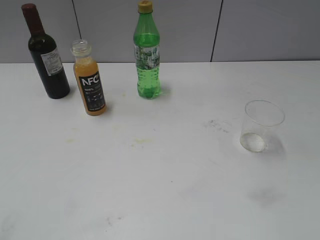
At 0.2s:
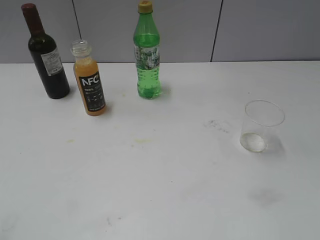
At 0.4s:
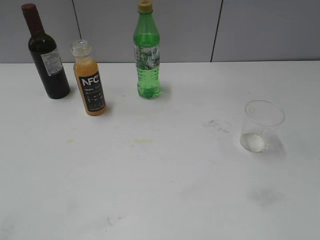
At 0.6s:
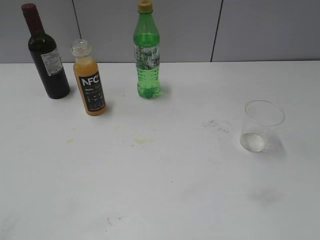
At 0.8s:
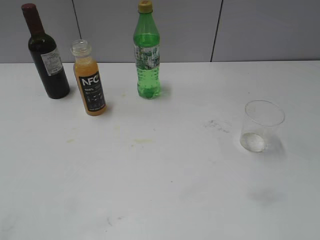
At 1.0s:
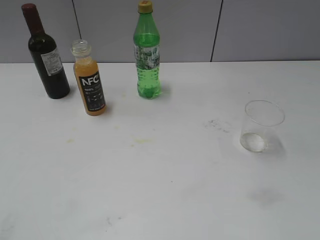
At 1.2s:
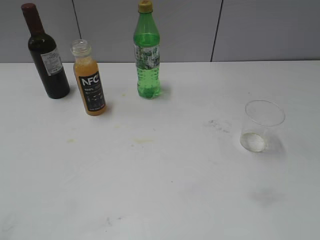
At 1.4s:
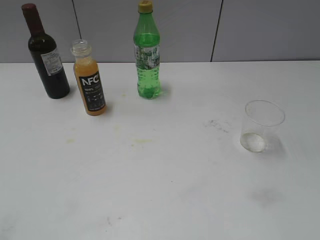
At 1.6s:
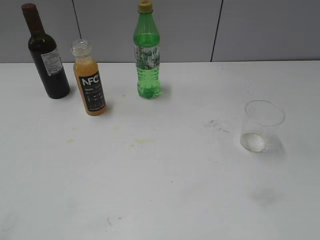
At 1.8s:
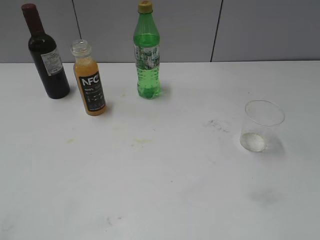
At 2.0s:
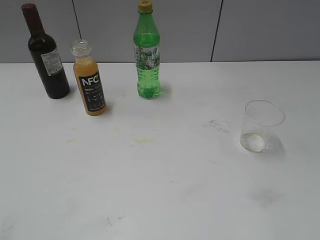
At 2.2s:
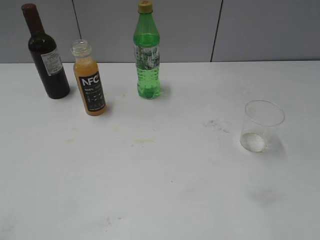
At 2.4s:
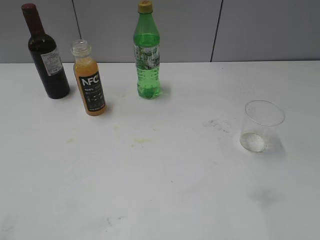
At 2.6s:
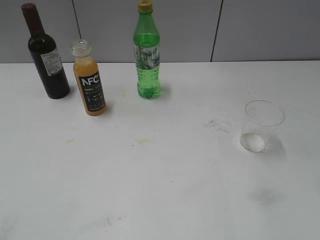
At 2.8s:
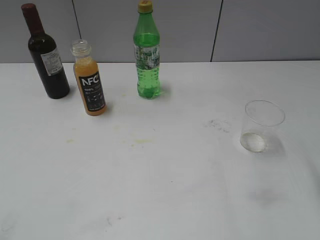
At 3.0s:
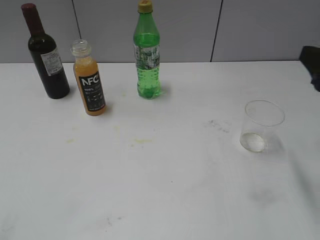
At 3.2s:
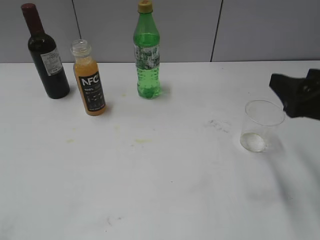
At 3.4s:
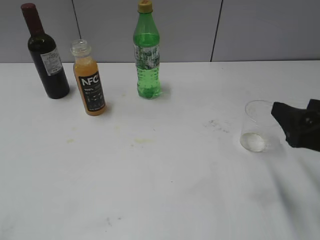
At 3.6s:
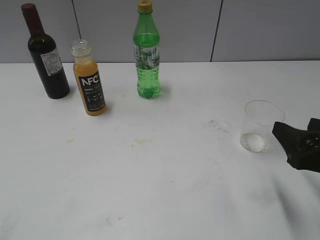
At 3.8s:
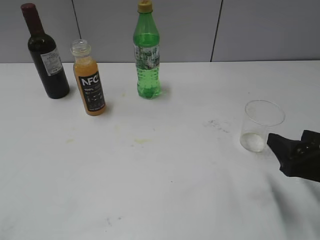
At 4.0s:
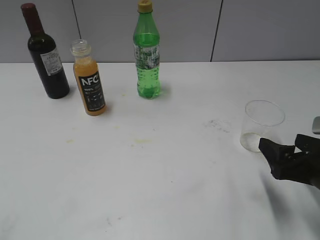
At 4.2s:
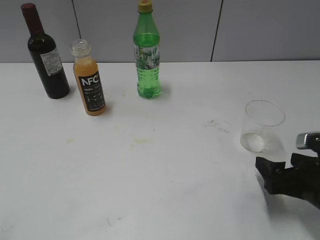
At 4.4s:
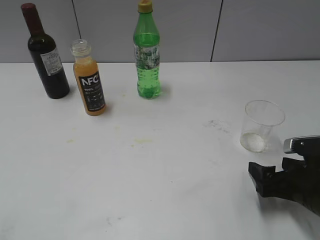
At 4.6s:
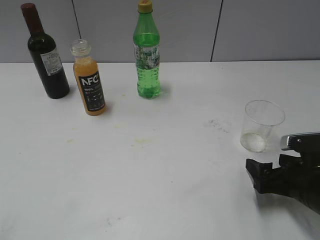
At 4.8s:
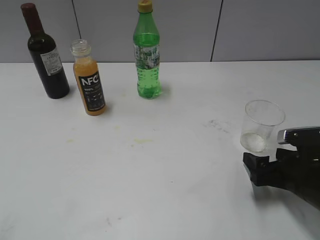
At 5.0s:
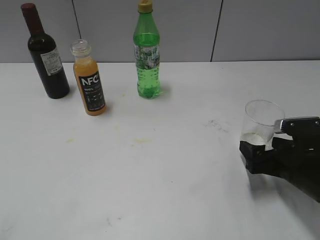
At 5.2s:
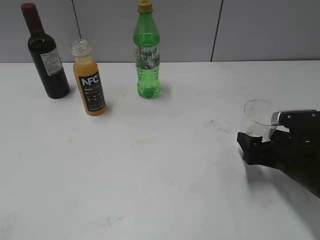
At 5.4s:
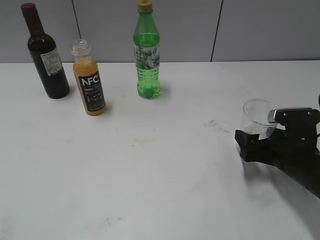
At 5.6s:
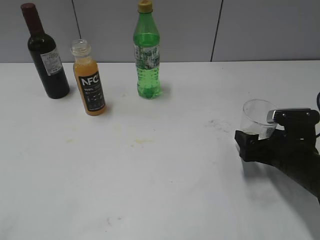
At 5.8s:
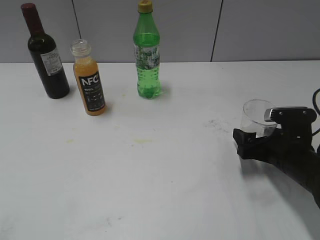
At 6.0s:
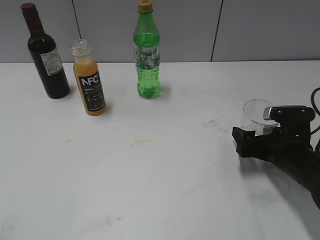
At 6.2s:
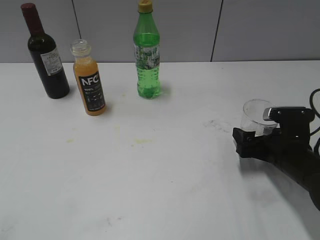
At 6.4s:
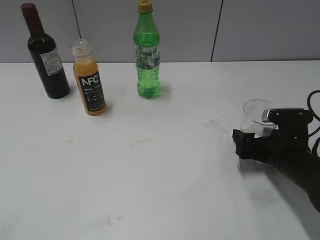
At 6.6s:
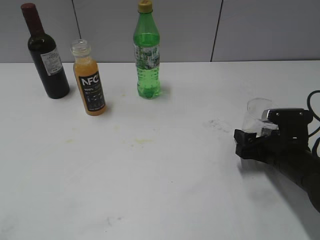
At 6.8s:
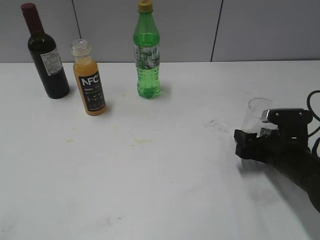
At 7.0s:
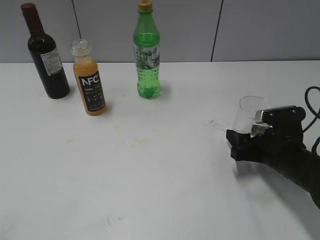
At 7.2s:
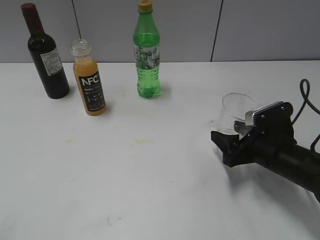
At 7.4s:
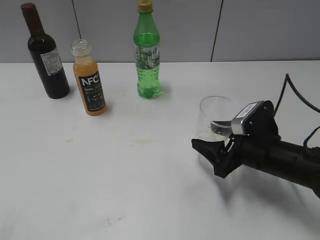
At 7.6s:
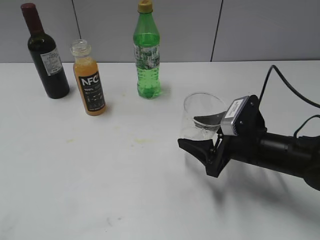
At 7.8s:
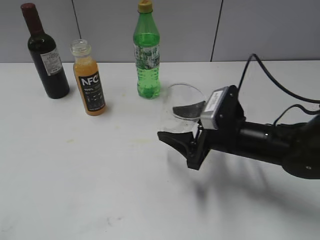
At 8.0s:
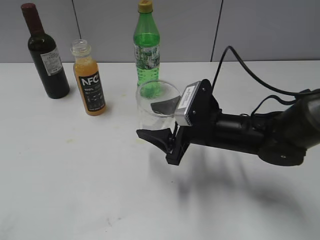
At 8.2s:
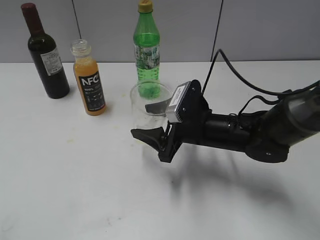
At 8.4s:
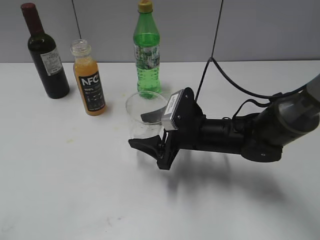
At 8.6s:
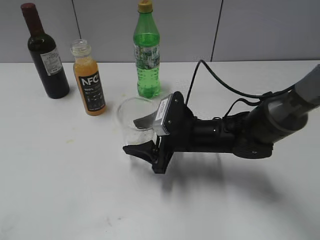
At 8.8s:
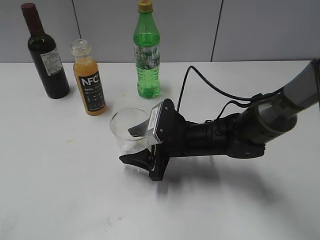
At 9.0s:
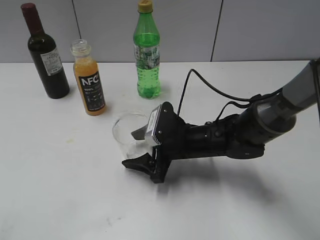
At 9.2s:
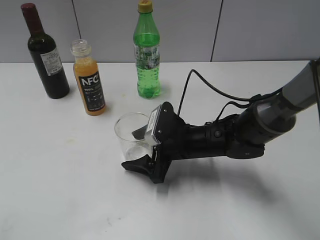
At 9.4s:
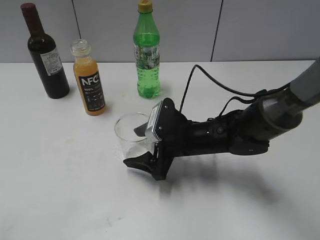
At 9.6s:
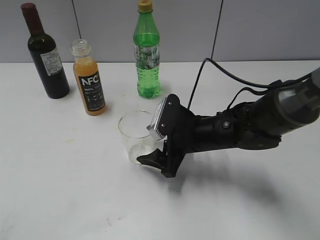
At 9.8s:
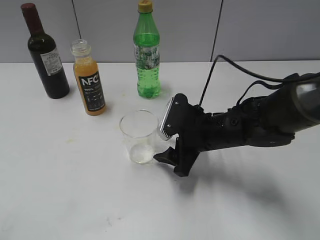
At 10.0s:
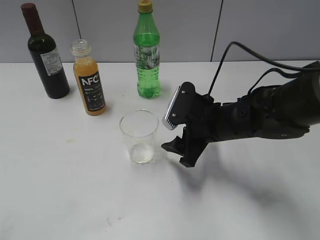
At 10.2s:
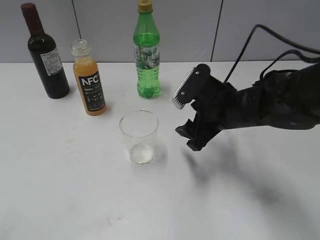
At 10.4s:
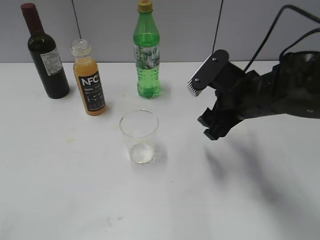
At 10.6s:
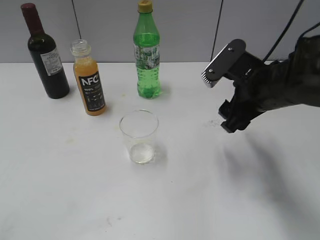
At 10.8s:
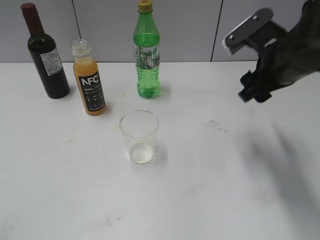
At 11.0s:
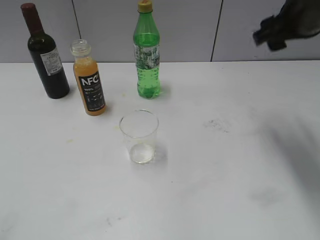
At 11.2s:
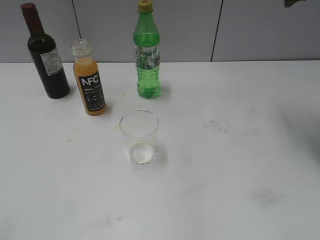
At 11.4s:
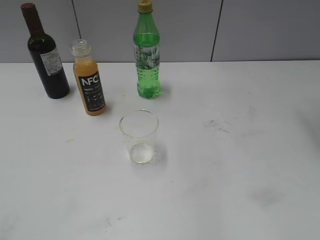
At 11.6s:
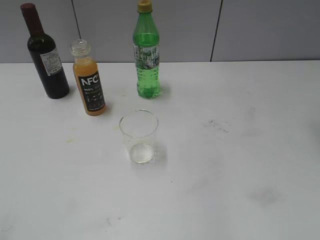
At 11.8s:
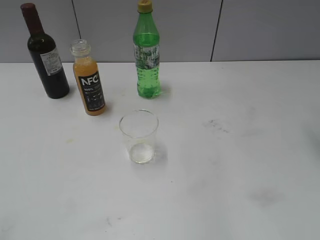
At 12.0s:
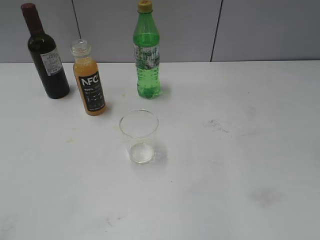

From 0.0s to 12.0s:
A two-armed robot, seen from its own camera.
Step, from 3.0s to 6.6s: Grasp the transparent cup with right gripper.
Step, from 6.8s to 9.6s: Place the transparent cup on the table with right gripper.
From 1.6s to 3.0s: The right gripper heads forward, covering approximately 20 cm.
From 3.0s to 4.4s: The right gripper moves downward, about 20 cm, and opens its fingers.
From 4.4s to 6.0s: The right gripper heads forward, covering roughly 5 cm.
From 6.0s to 7.6s: The right gripper moves to the left, approximately 5 cm, and closes up.
From 7.6s to 9.0s: The right gripper travels to the left by some 10 cm.
From 9.0s to 10.4s: The right gripper travels upward and to the right by some 15 cm, and opens, then closes again.
From 10.4s to 12.0s: The right gripper moves upward and to the right, roughly 30 cm.

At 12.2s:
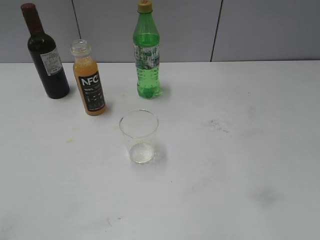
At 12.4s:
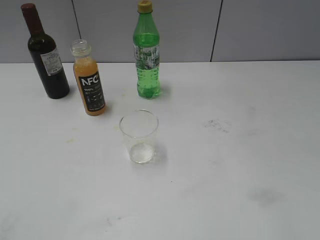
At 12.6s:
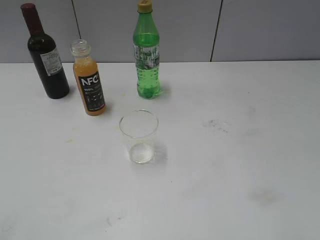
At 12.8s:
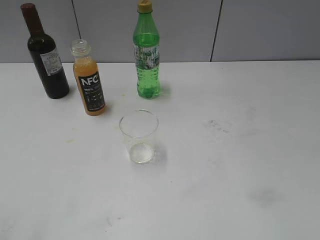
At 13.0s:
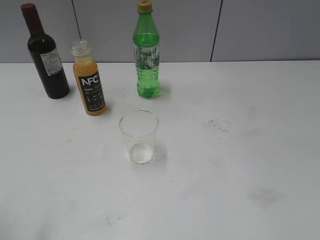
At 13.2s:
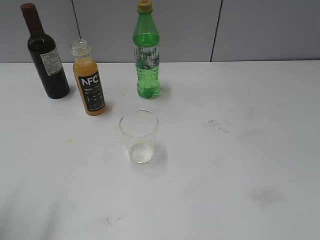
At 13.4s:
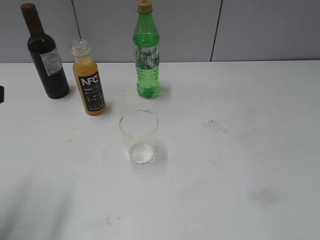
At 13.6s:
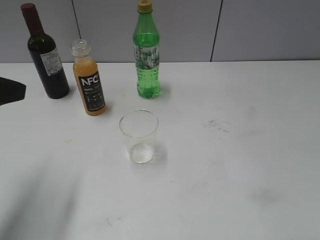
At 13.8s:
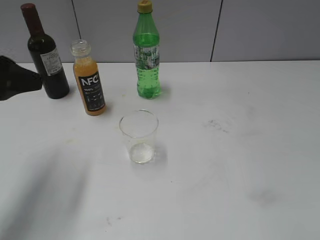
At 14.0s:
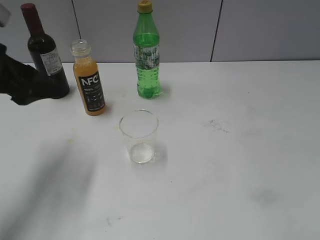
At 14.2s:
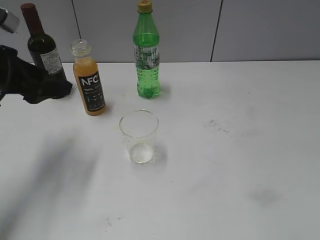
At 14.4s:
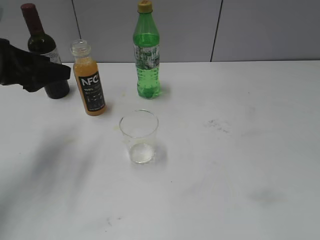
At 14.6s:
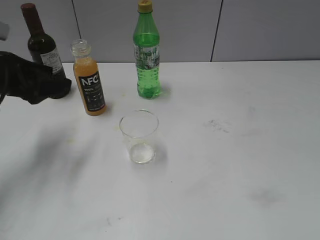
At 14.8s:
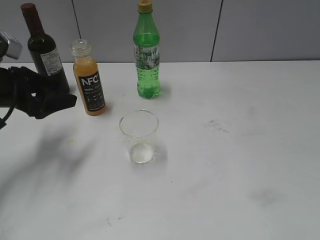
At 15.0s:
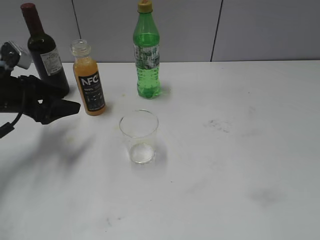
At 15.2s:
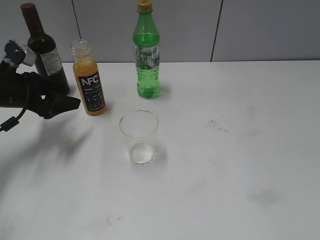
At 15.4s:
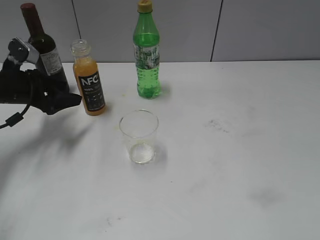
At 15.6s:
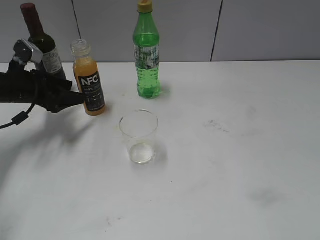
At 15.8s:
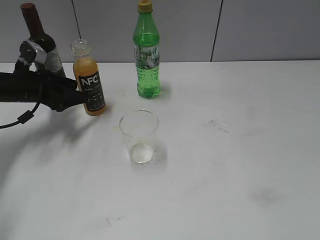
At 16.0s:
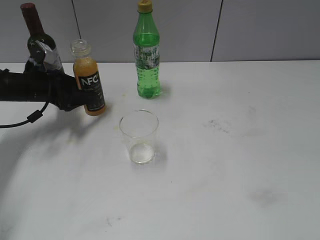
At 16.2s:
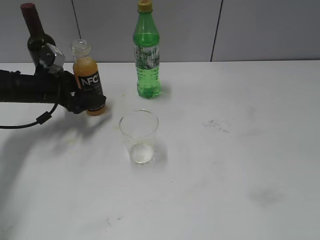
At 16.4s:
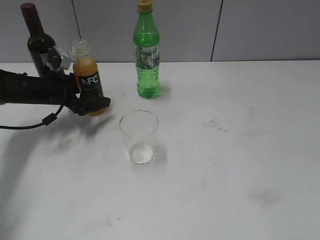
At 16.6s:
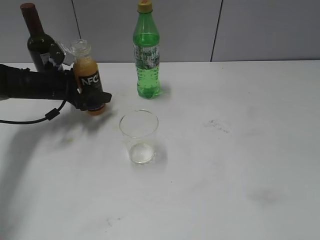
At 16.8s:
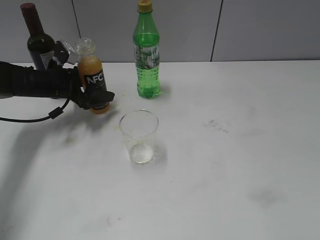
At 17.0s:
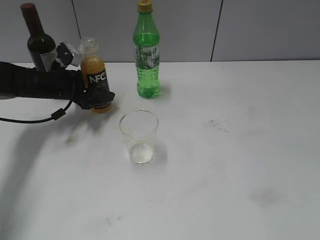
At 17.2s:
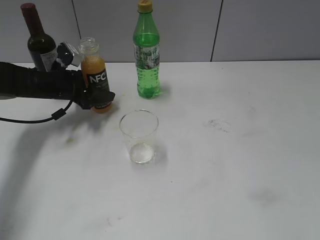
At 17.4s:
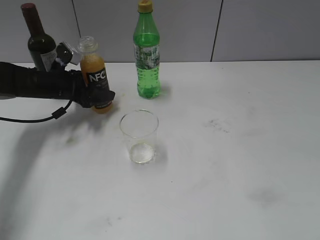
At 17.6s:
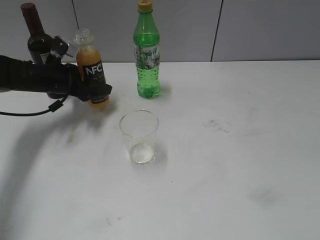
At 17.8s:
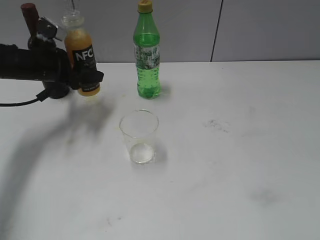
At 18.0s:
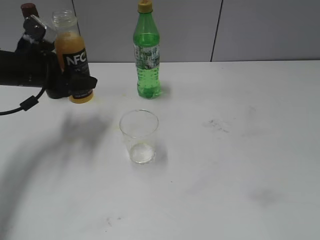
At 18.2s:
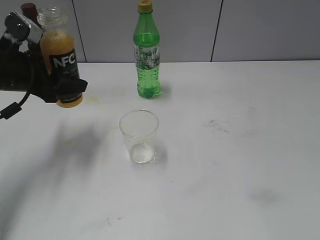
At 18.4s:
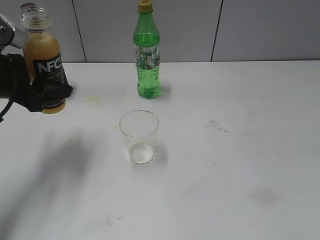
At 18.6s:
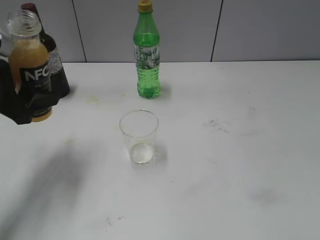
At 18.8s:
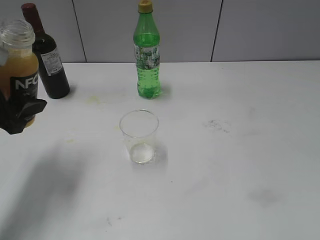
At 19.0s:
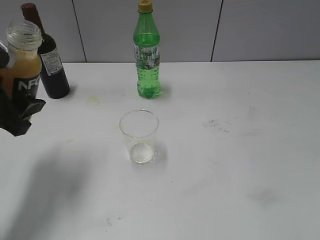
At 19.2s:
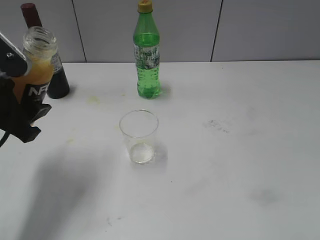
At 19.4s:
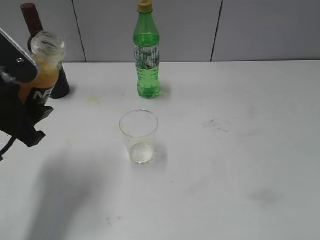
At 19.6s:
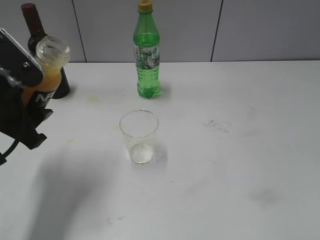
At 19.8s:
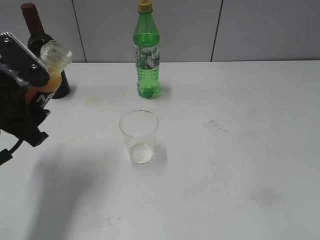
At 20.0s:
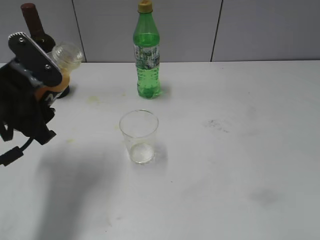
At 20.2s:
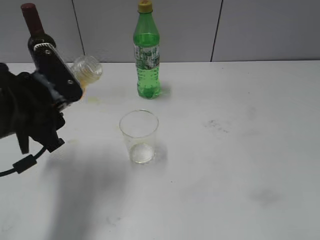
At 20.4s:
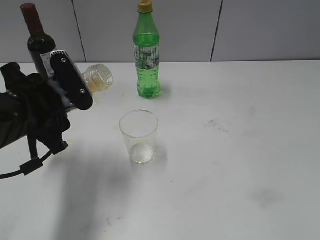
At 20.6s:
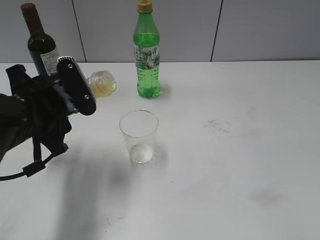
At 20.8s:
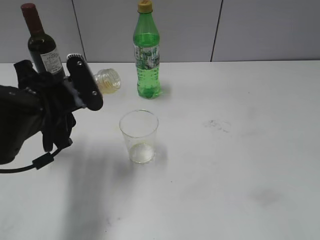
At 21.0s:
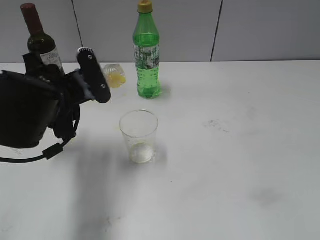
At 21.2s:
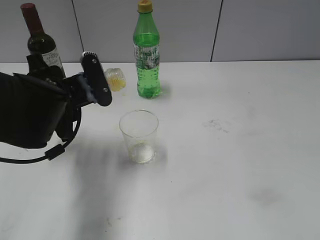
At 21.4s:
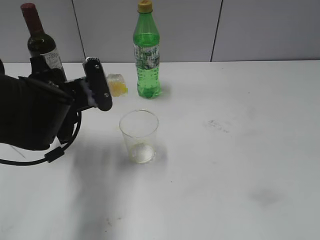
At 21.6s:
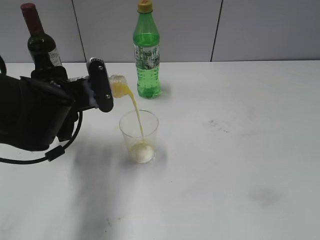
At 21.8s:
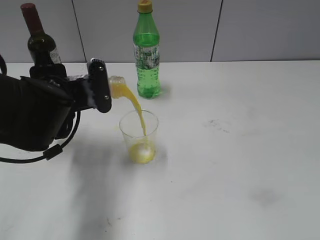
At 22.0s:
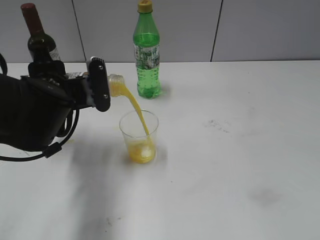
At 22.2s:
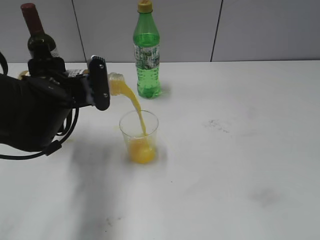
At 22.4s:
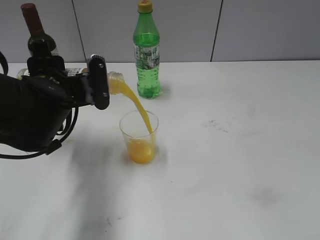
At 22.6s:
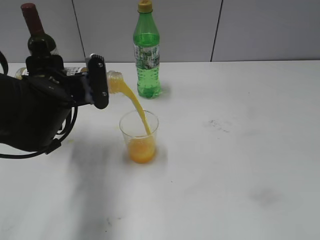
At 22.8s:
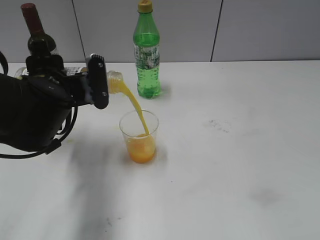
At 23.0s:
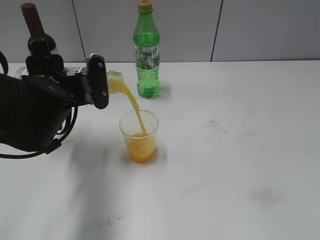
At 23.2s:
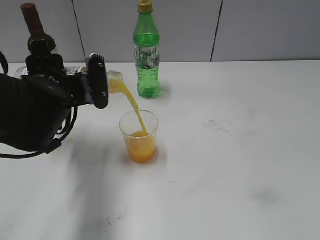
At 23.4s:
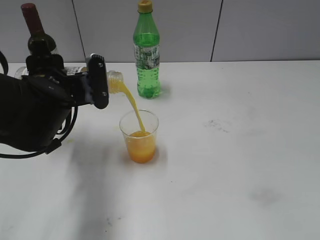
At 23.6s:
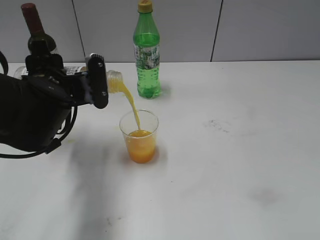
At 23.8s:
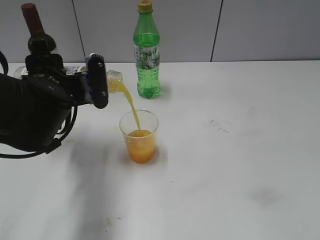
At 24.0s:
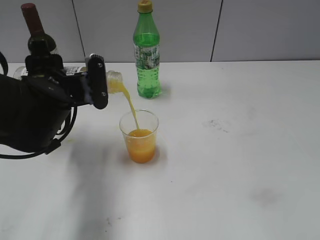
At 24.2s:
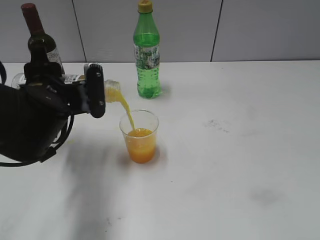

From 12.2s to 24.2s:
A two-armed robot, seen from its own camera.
Step, from 12.2s to 17.2s: Grasp the bottle with orange juice with left gripper.
From 12.2s to 13.8s: The left gripper goes roughly 25 cm forward.
From 13.8s to 15.2s: The left gripper moves downward and forward, some 20 cm.
From 15.2s to 16.6s: The left gripper is displaced forward by some 10 cm.
From 16.6s to 18.2s: The left gripper shifts some 15 cm upward and backward, and closes its fingers.
From 18.2s to 19.8s: The left gripper is displaced backward by about 10 cm.
From 19.8s to 21.2s: The left gripper travels to the right by approximately 5 cm.
From 21.2s to 22.6s: The grippers move only a little.
From 22.6s to 24.2s: Both grippers stay about where they are.
